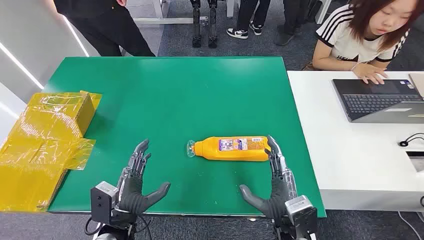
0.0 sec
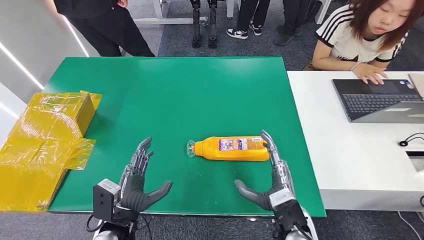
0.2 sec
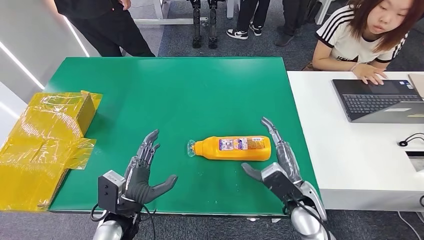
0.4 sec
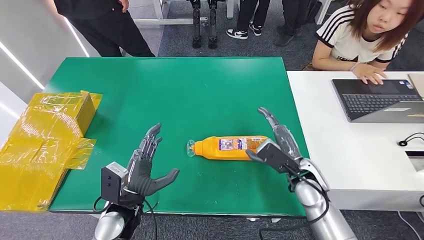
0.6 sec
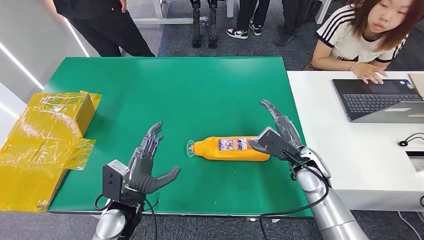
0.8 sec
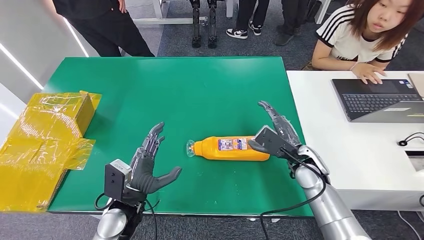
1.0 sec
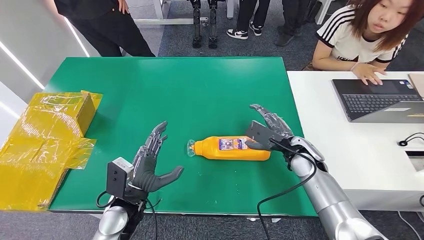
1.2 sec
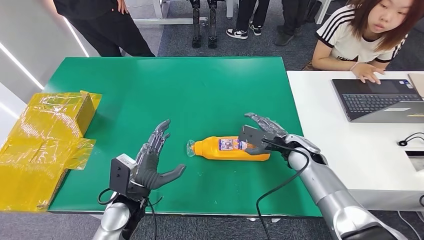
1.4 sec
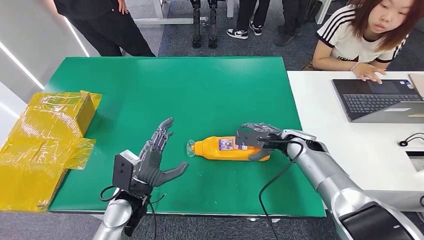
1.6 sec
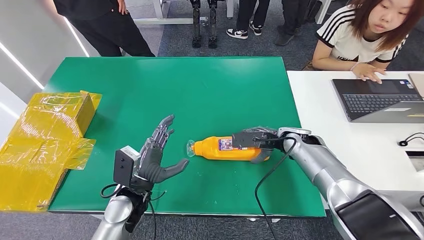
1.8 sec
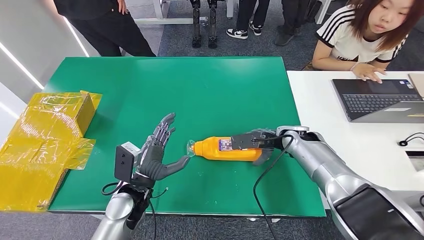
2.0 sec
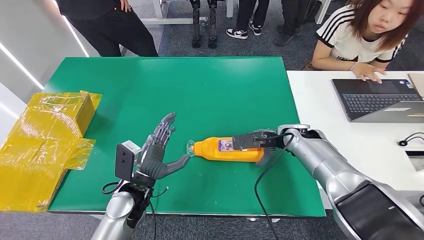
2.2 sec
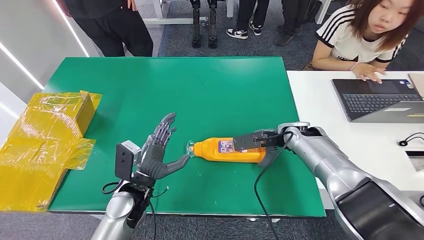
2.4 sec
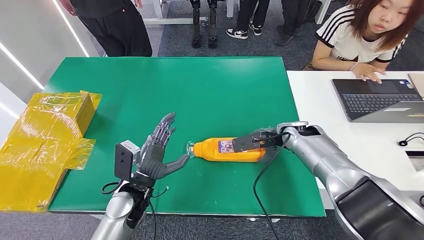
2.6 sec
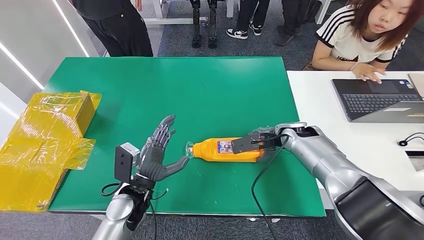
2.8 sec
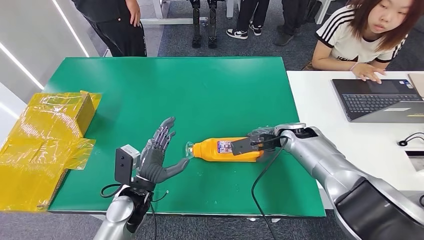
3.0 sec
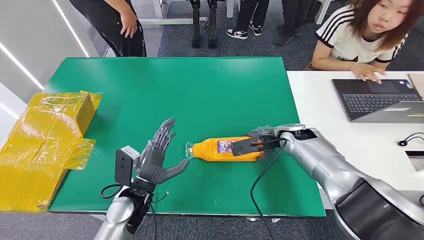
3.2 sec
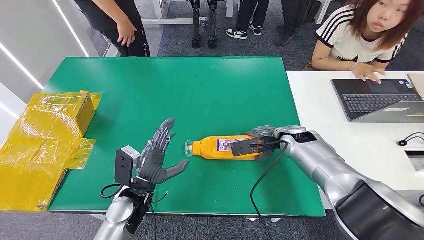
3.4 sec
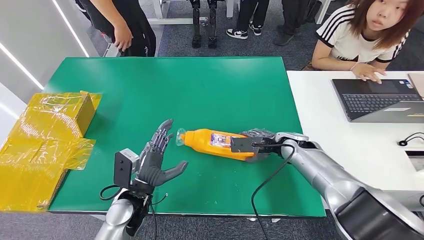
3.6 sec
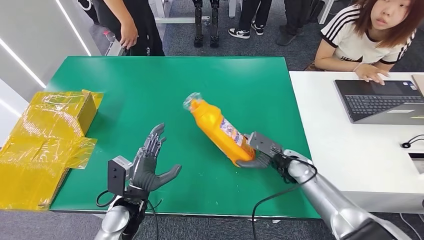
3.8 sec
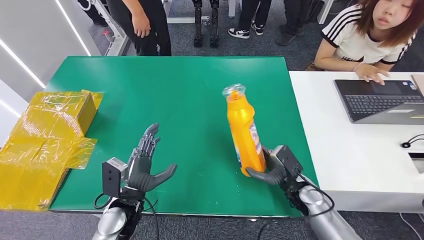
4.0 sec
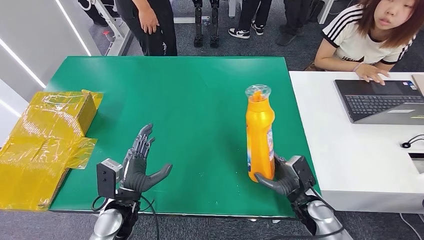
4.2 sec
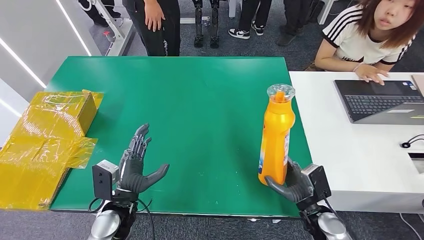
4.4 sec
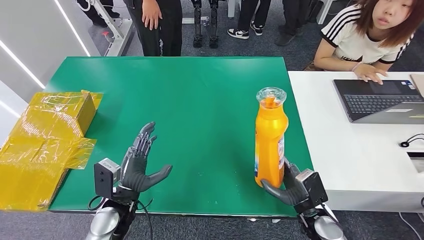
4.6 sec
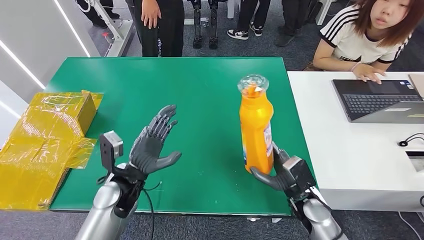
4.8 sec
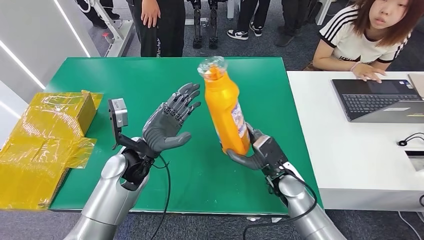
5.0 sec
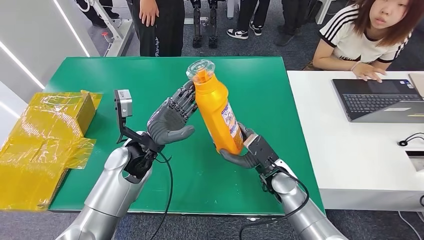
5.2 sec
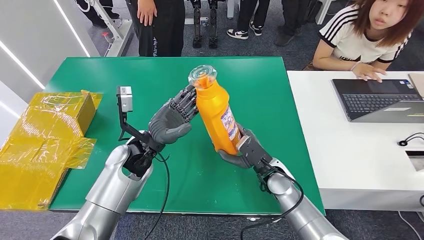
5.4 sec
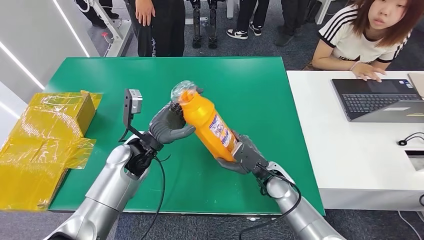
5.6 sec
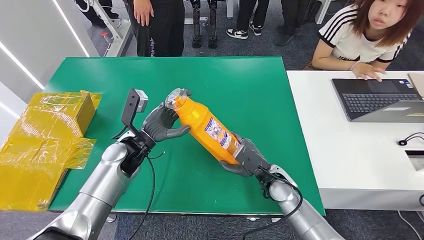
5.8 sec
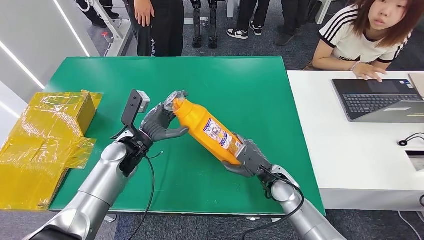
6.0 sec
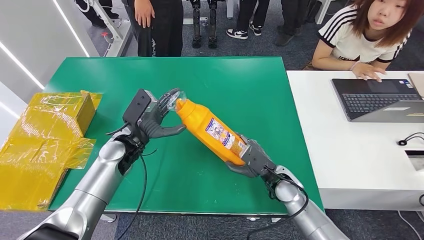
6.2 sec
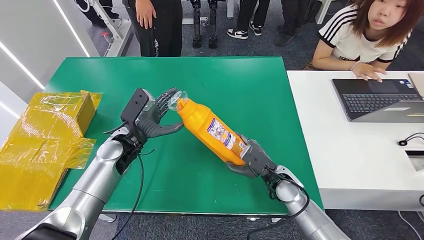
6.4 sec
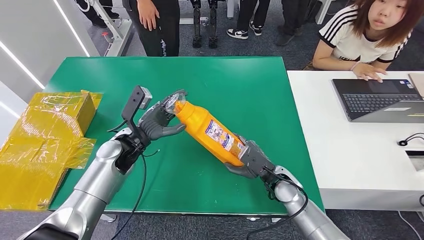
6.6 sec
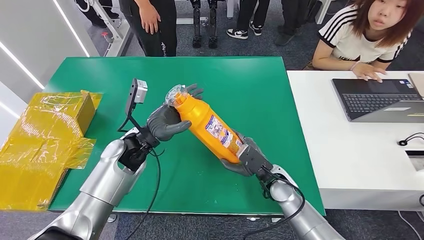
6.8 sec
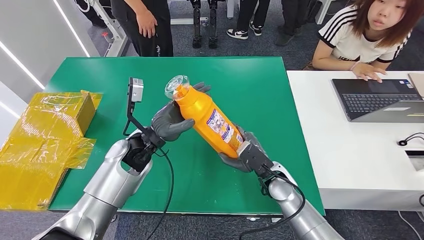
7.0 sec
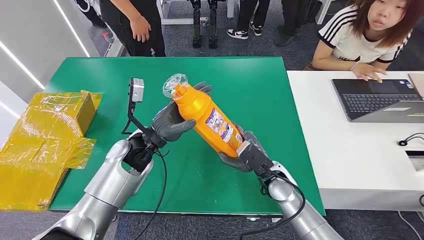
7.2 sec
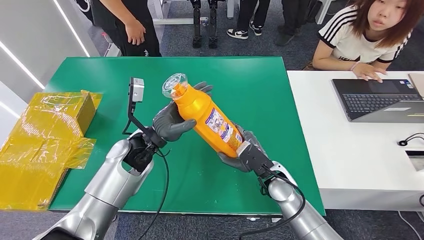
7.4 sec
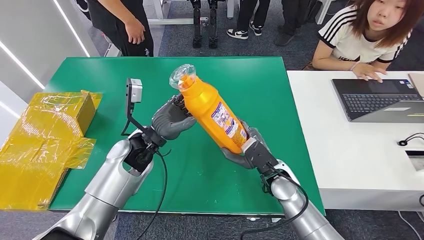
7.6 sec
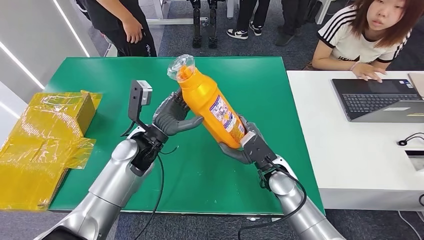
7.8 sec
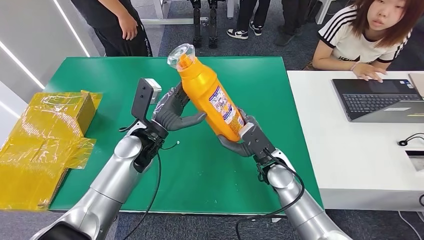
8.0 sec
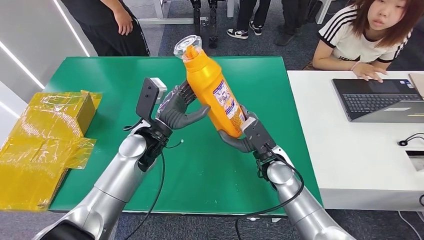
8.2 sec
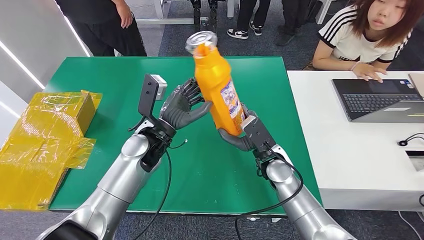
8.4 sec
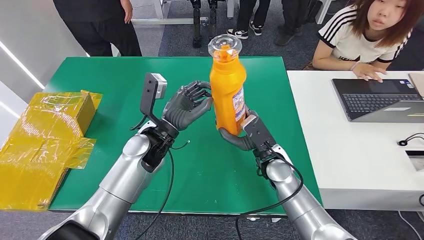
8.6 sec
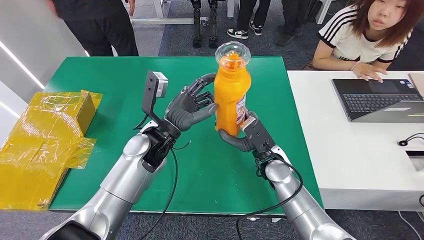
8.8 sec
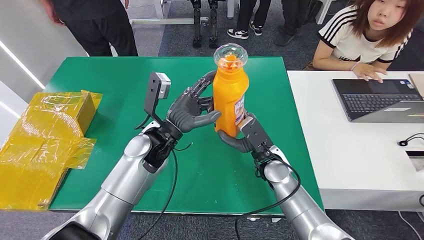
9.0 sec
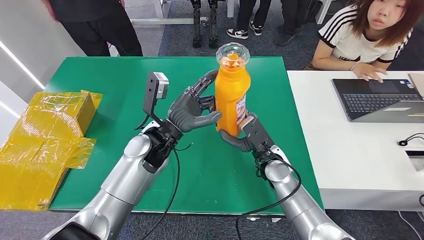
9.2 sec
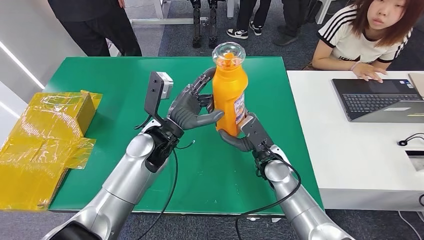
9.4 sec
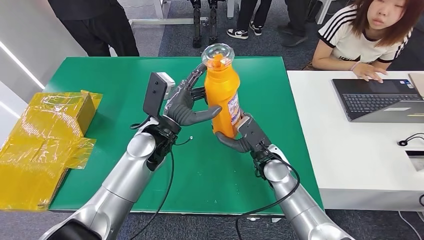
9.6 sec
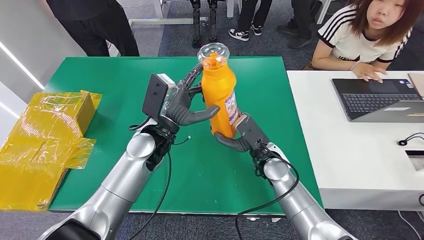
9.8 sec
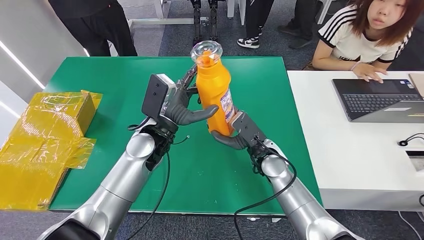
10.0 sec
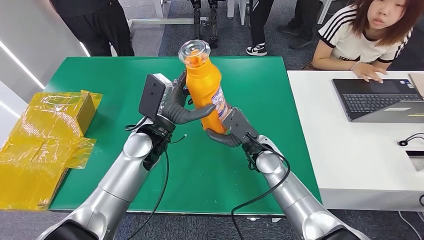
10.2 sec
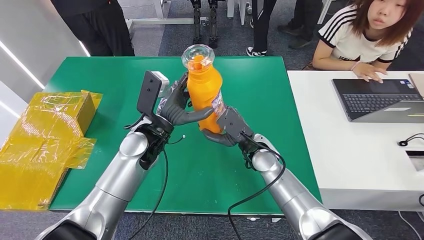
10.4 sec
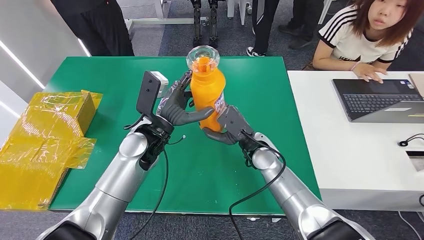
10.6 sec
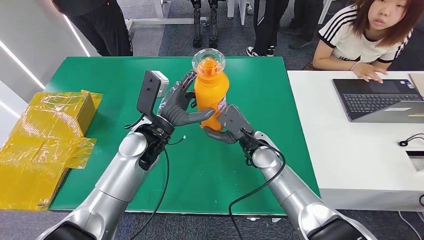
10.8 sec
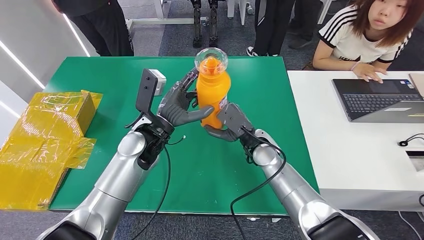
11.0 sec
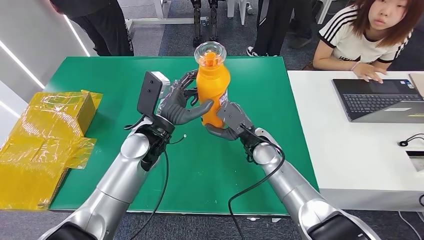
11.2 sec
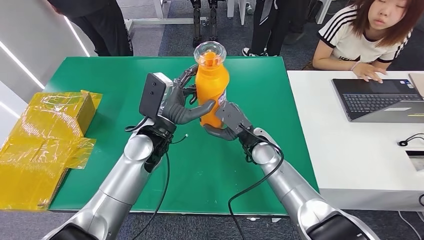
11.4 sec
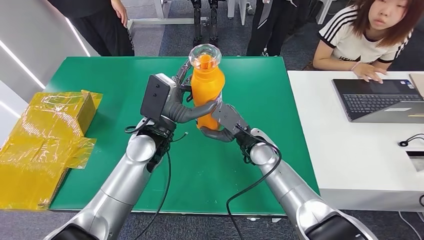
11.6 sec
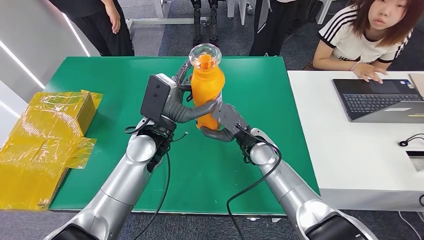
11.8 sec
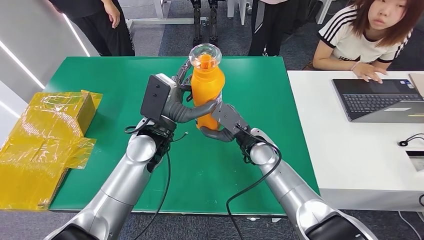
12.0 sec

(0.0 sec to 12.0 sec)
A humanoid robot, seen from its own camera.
Step, 0.0 sec - 8.8 sec: Pick up the bottle from the table.
6.0 sec - 7.6 sec: The left hand changes place by approximately 5 cm.
10.4 sec - 12.0 sec: The hands make only small movements.

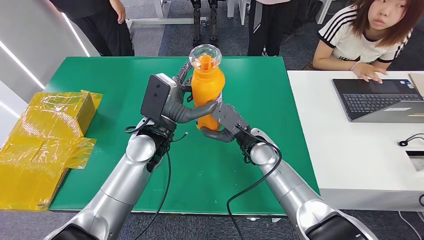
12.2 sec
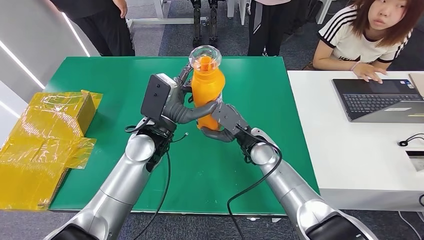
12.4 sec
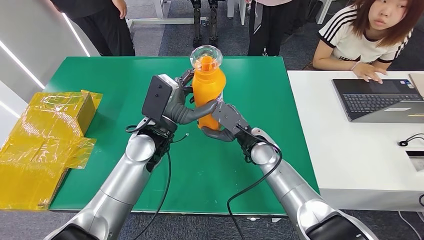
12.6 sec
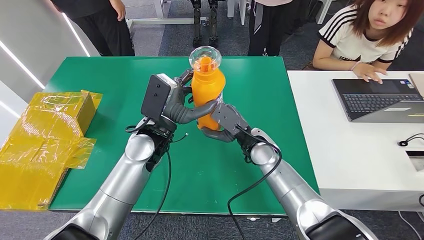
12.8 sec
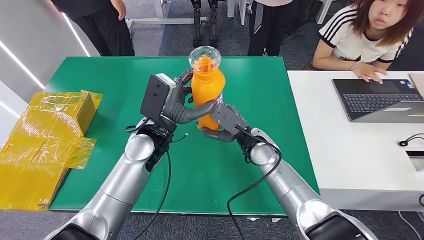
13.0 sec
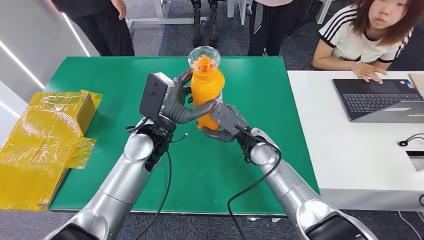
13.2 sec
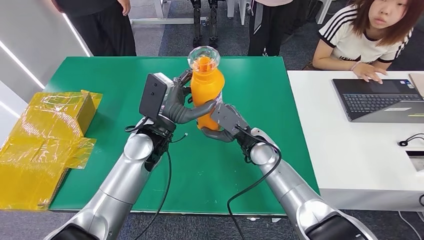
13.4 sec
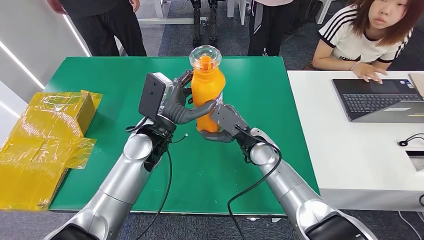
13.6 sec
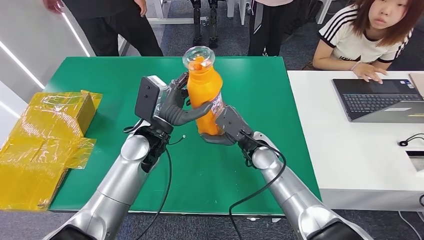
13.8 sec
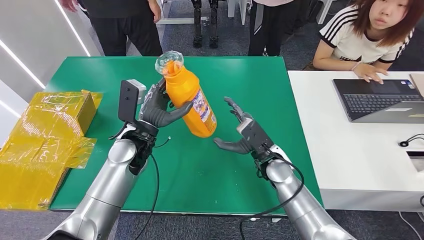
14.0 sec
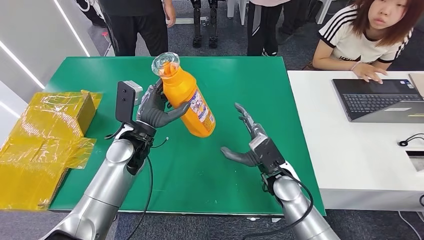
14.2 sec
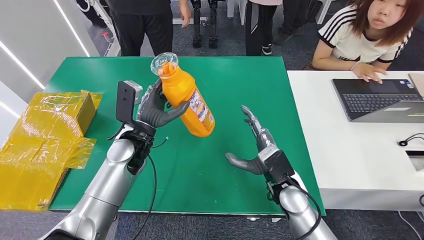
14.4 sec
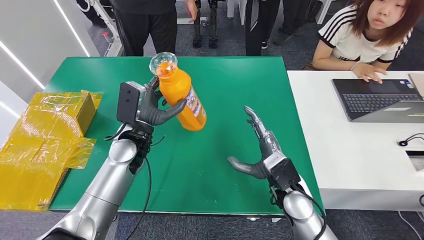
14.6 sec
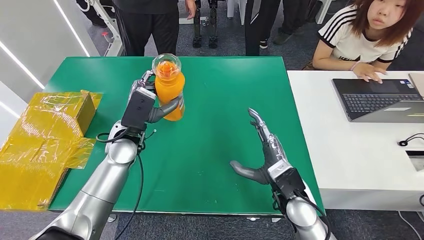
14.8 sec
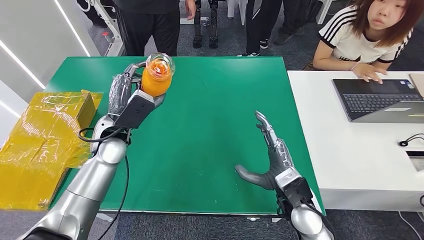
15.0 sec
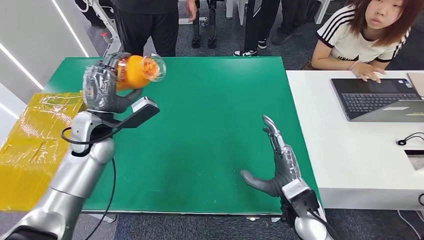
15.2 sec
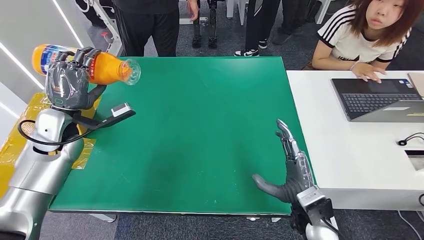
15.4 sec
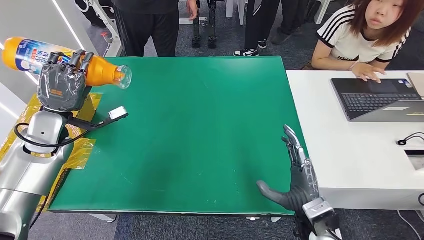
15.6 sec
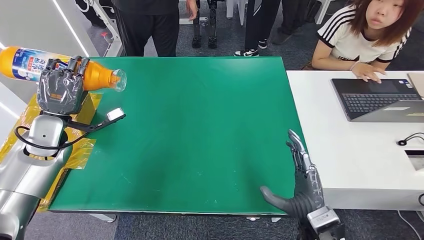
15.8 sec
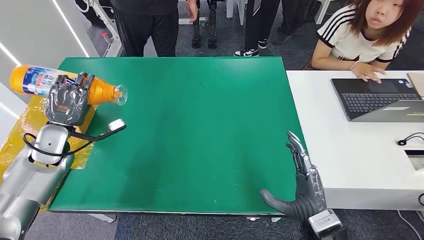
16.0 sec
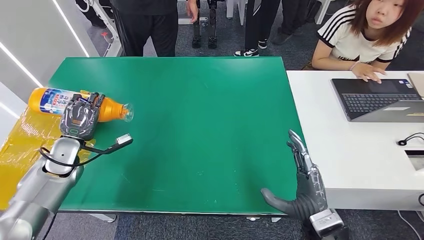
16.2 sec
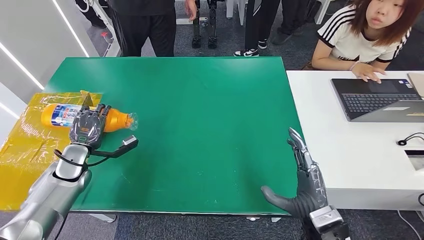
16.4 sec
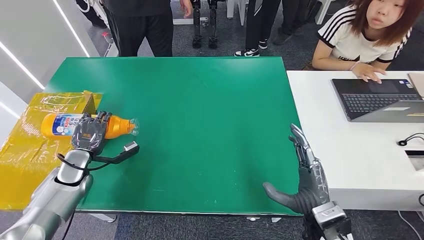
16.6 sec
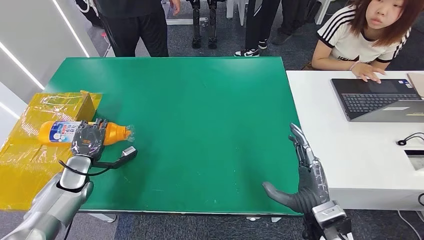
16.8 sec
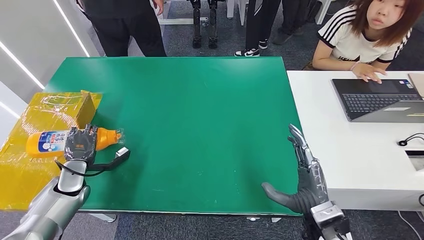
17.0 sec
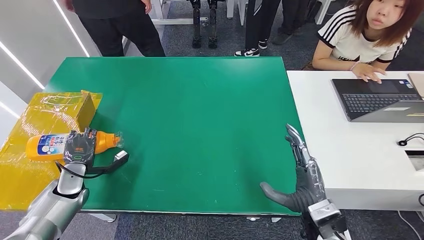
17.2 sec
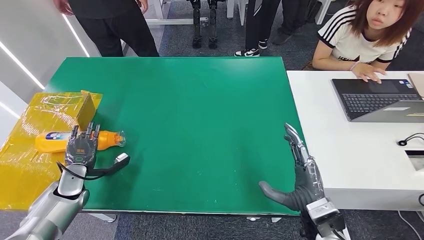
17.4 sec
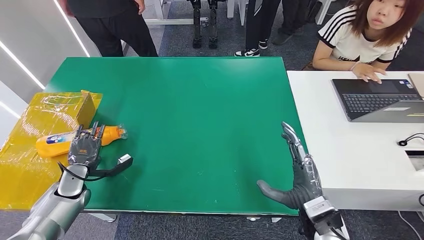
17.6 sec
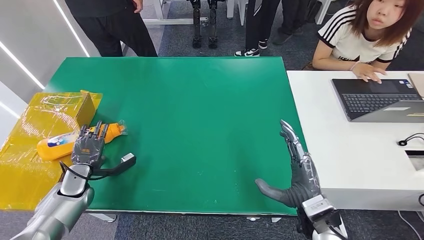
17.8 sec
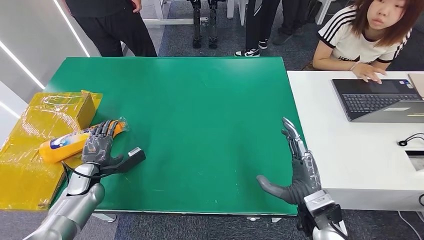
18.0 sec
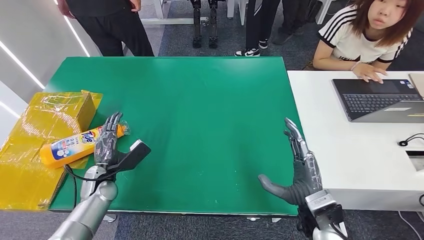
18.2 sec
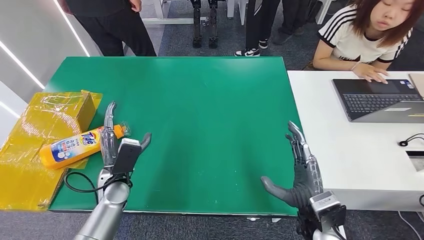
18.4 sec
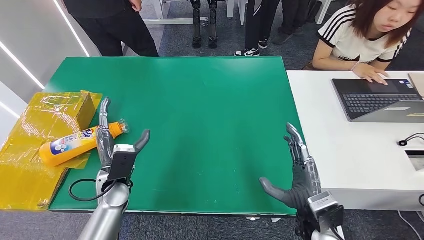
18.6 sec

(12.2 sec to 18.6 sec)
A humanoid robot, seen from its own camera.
Step, 12.2 sec - 18.6 sec: Turn the bottle to the front side.
12.2 sec - 13.8 sec: The hands make only small movements.
17.0 sec - 18.6 sec: The left hand travels to the right by about 15 cm.
